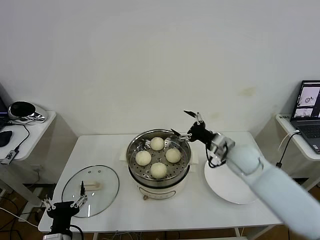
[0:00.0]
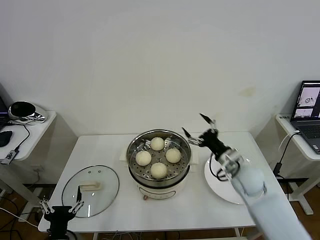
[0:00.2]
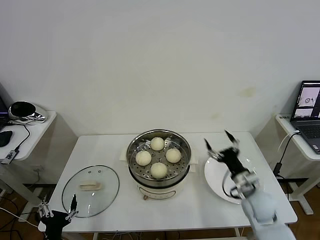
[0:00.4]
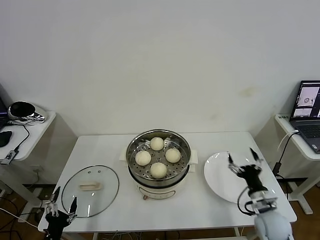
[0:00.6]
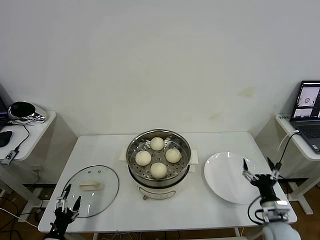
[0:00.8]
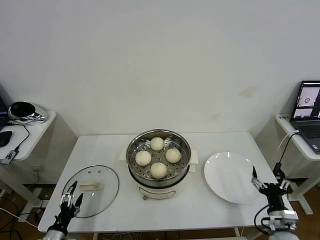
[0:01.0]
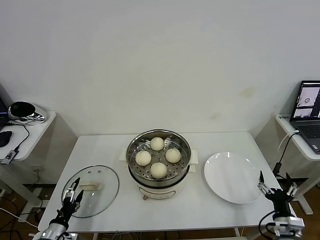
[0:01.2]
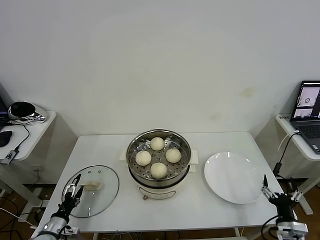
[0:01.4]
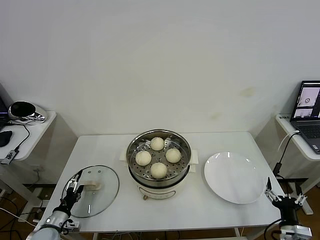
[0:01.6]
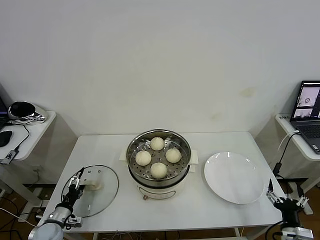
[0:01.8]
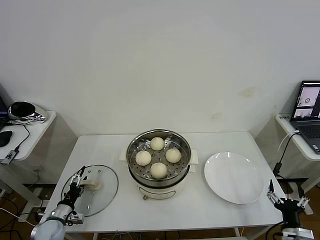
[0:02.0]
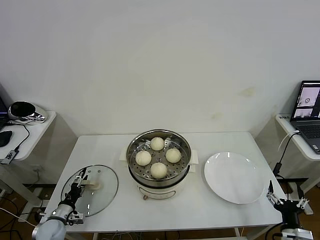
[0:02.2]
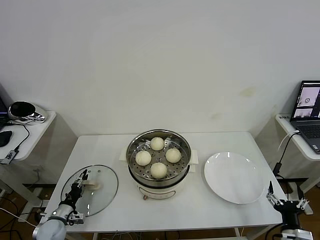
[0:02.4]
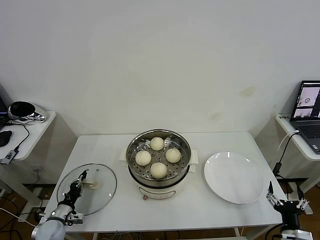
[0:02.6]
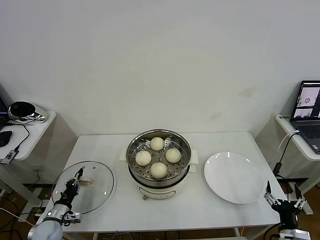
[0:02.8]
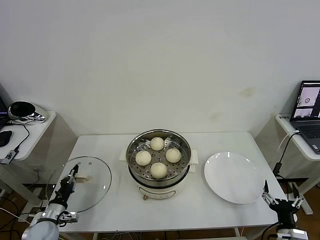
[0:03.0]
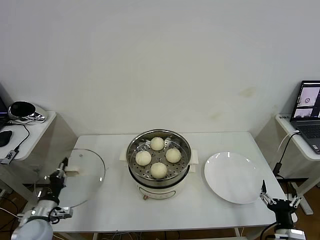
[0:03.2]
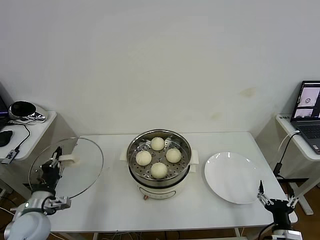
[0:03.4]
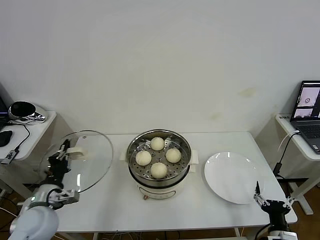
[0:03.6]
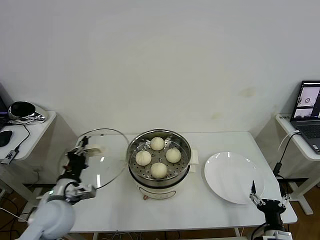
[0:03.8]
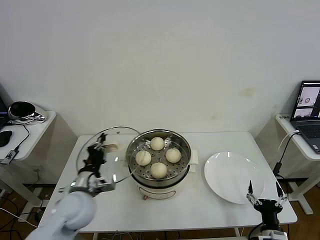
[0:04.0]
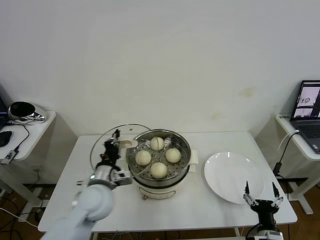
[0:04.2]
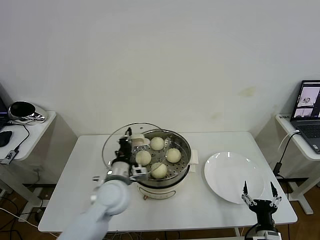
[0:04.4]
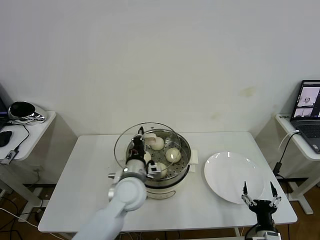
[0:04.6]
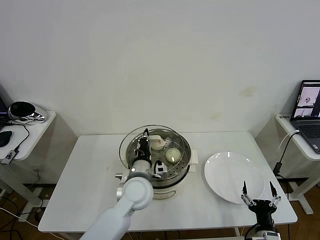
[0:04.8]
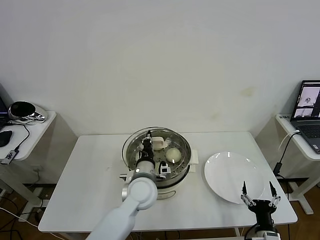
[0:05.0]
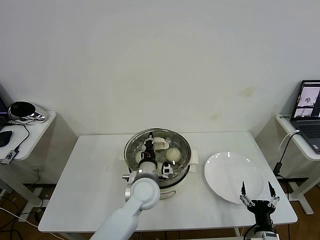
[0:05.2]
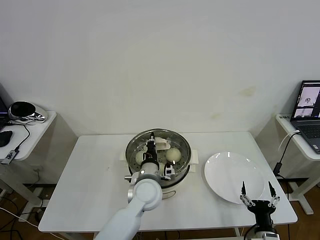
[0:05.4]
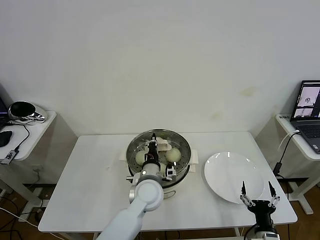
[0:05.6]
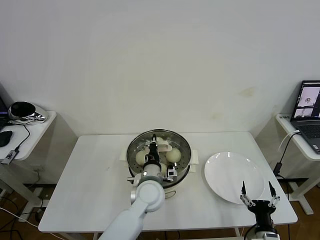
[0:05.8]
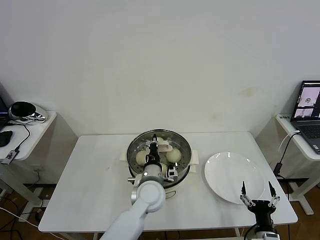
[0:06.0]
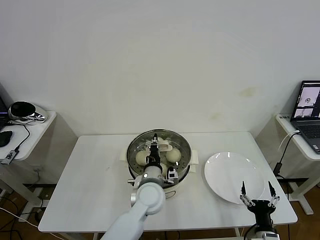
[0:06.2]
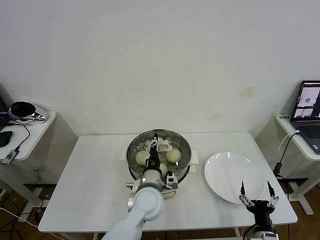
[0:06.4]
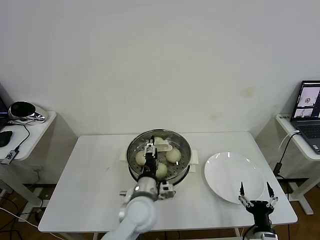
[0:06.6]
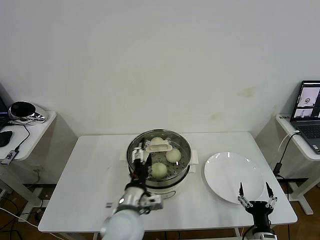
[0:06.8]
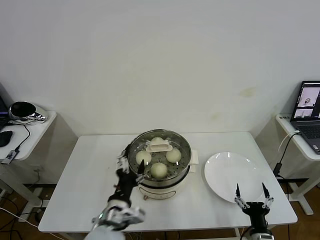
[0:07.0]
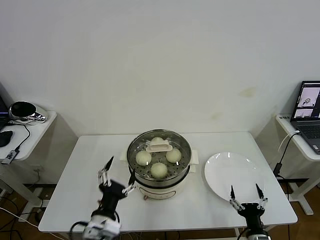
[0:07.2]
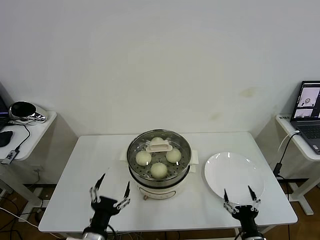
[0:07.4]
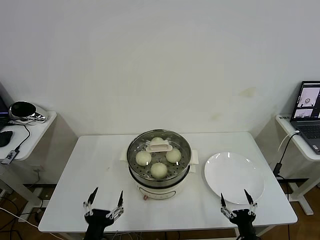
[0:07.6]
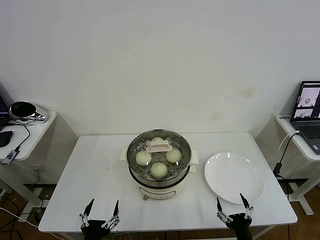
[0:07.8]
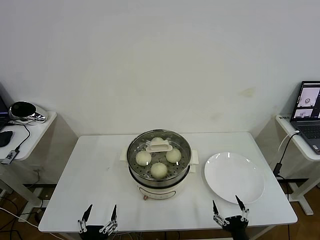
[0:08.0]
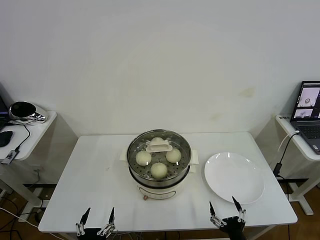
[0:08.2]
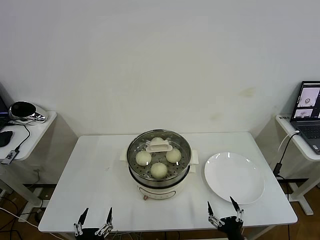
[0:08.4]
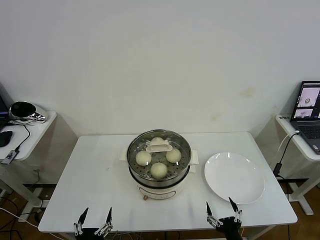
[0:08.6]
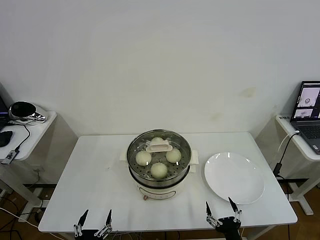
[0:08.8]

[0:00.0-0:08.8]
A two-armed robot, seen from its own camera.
Task of the whole recording: take steamed baozi put them in steamer then cover it.
Step, 0:00.0 to 0:02.8: Grasp the pot lid with left gripper.
Step, 0:03.0 to 0:06.6: Place the pot lid on the steamer with left gripper.
0:00.0 to 0:01.4: The left gripper shifts some 20 cm to the left, downward and forward, while the right gripper is displaced backward, downward and to the right by roughly 30 cm.
0:01.4 to 0:03.0: The left gripper closes up.
0:03.0 to 0:04.4: The right gripper goes roughly 5 cm to the left. Meanwhile the left gripper shifts some 30 cm to the right and upward.
0:04.4 to 0:05.8: The left gripper is displaced to the right by some 10 cm.
0:05.8 to 0:07.4: The left gripper shifts some 25 cm backward and to the left, and opens its fingers.
0:07.4 to 0:08.8: The left gripper heads downward, backward and to the left, covering approximately 15 cm, while the right gripper changes place by roughly 5 cm.

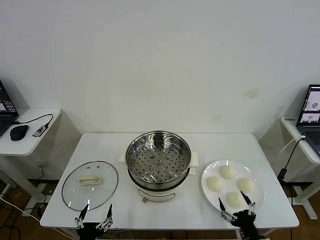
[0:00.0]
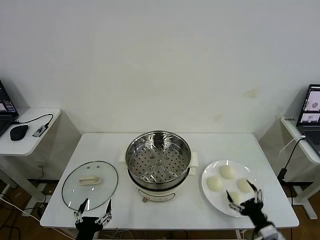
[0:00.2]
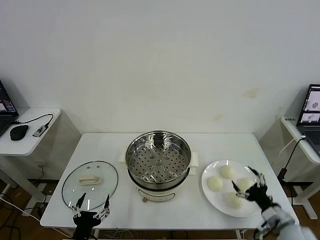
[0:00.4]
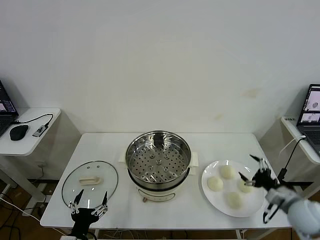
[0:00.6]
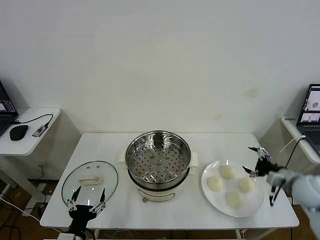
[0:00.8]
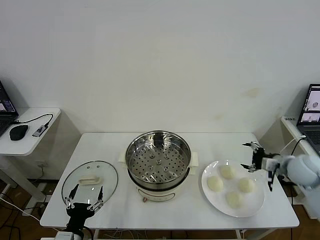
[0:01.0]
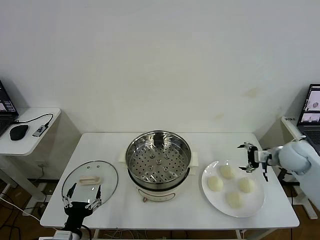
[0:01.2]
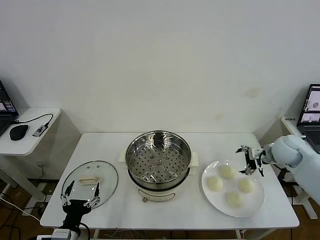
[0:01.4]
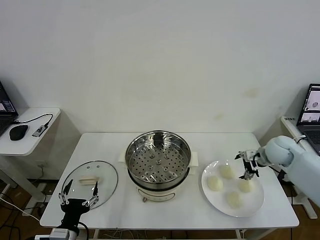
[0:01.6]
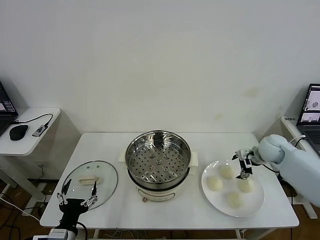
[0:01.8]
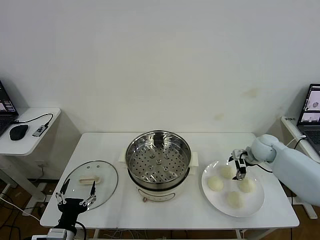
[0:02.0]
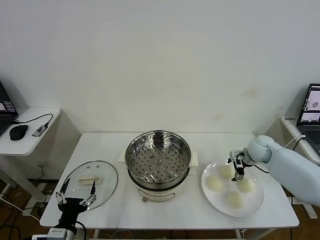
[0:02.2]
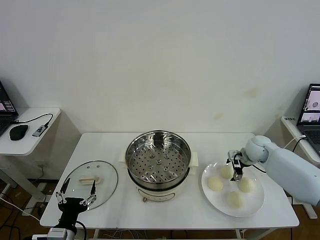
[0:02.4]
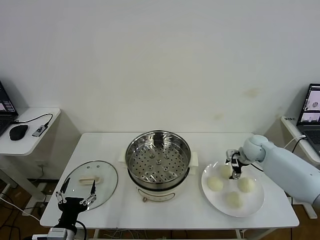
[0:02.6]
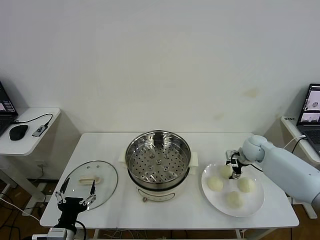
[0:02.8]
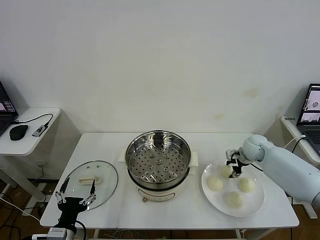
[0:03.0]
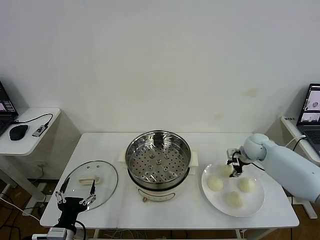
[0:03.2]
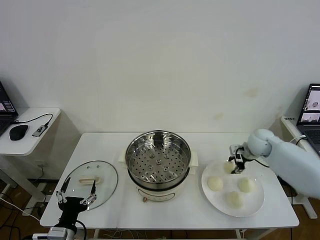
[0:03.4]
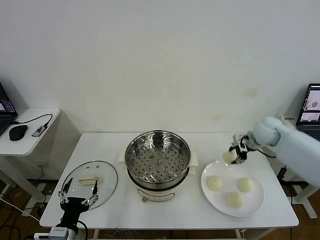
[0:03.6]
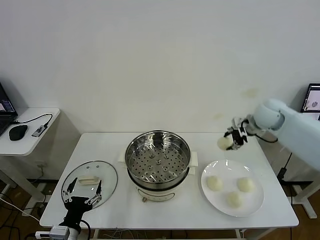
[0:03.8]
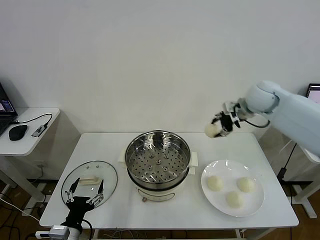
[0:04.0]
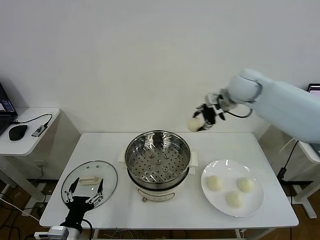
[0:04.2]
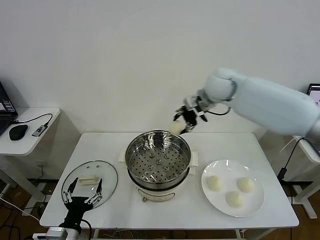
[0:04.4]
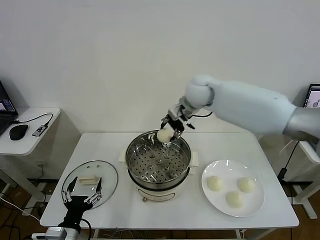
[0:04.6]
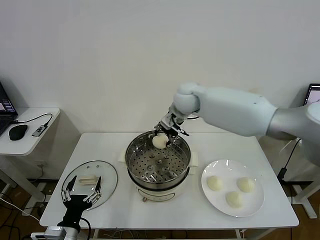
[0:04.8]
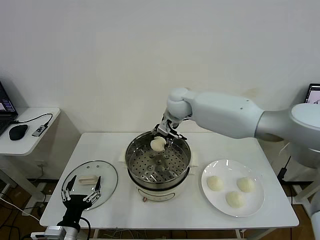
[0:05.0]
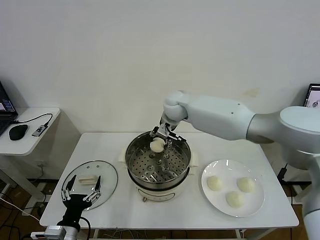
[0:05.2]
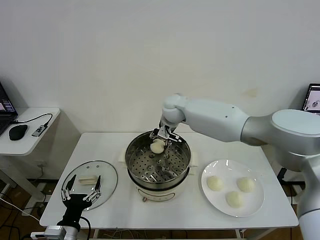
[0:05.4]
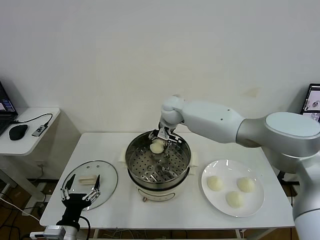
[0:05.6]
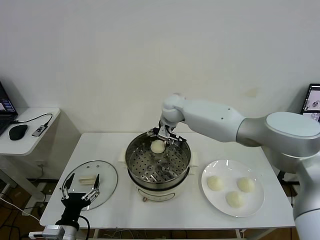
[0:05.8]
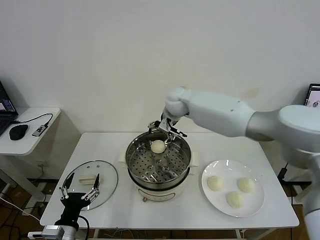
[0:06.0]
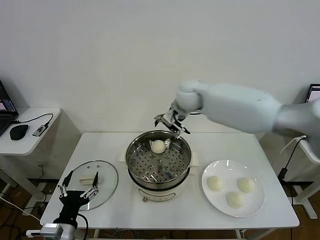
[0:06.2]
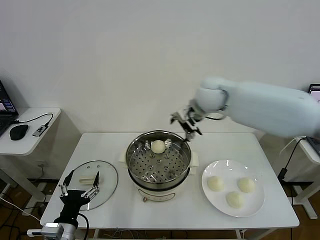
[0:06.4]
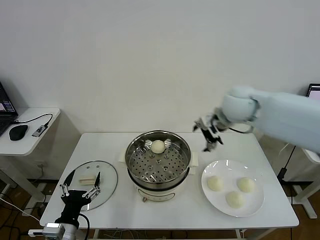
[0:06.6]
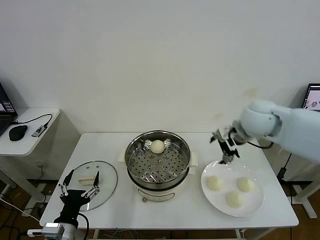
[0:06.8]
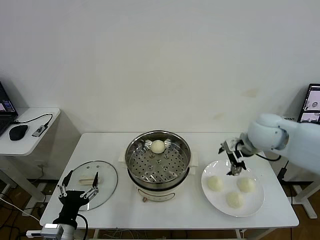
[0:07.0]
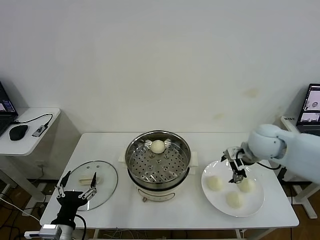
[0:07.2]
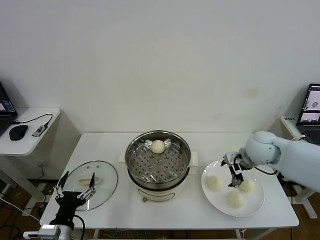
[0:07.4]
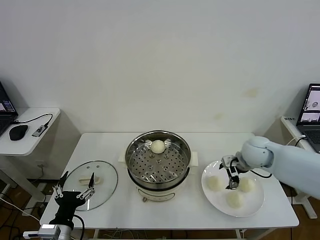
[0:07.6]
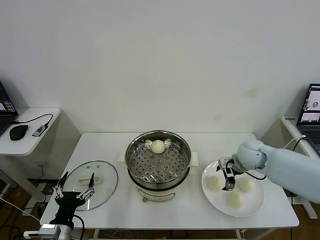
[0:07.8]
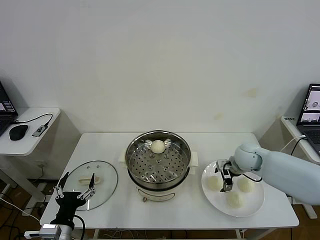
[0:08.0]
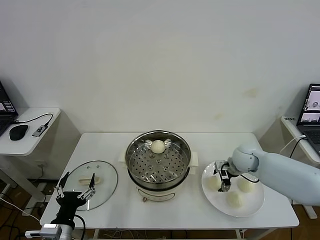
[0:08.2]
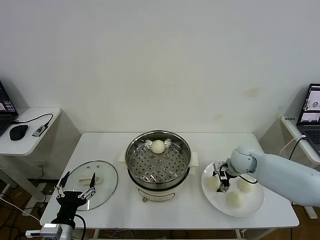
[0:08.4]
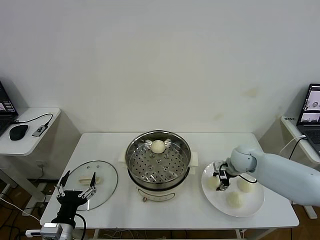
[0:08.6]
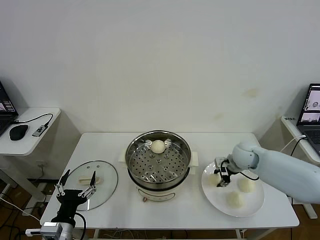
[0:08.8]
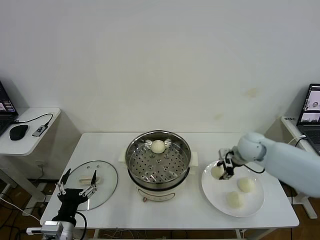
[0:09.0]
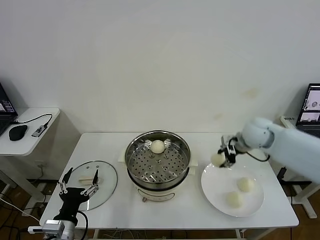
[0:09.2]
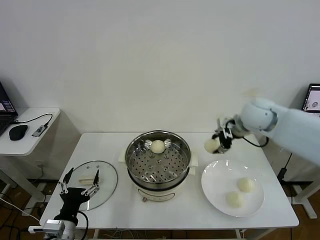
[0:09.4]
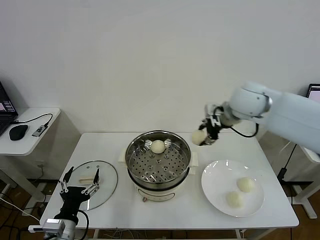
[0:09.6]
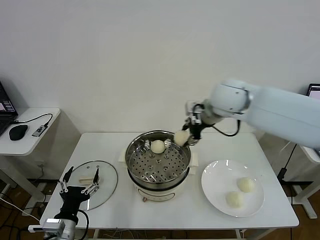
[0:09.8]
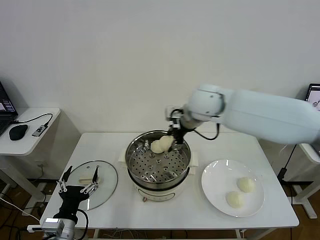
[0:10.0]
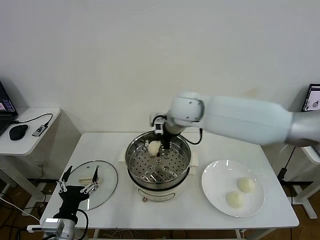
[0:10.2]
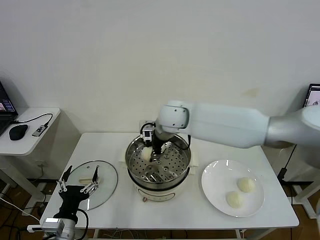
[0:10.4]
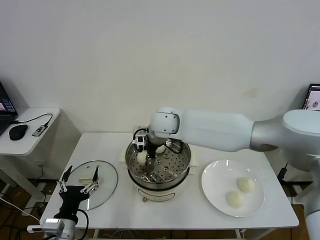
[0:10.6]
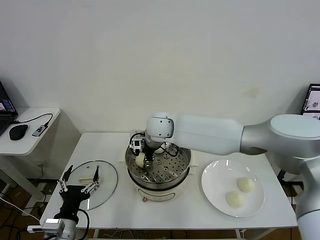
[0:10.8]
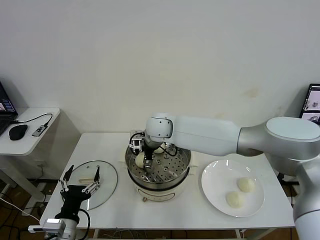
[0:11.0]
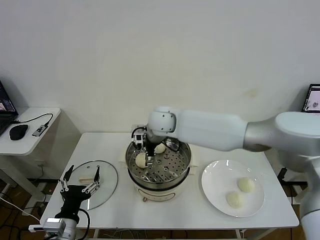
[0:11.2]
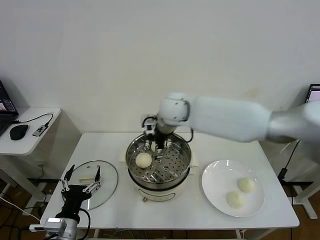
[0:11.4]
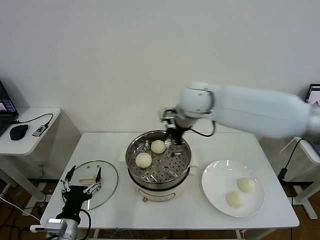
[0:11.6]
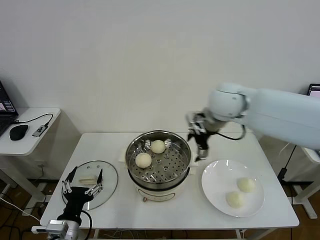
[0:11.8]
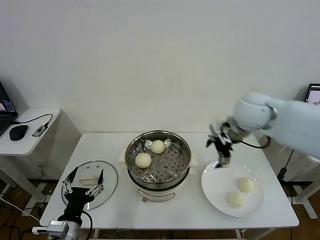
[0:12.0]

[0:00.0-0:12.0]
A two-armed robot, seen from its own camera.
Task of the whole recording: take steamed baozi put them in steamer then cover it.
Step, 0:00.0 to 0:03.0: Grasp the baozi in the plate with right gripper.
Step, 0:03.2 to 0:05.8: Place the baozi on the steamer with right gripper.
Step, 0:06.0 to 0:08.6: Grasp the baozi in the plate with right gripper.
Step, 0:08.8 to 0:11.2: Place the baozi on the steamer with right gripper.
0:01.6 to 0:03.0: The right gripper changes place by approximately 5 cm, and closes its fingers.
0:03.0 to 0:04.4: The right gripper moves to the left and upward, some 30 cm.
0:04.4 to 0:06.0: The right gripper goes downward and returns, roughly 10 cm each way, and opens up.
0:06.0 to 0:07.6: The right gripper is displaced to the right, downward and backward by some 30 cm.
0:07.6 to 0:09.0: The right gripper shifts by roughly 5 cm, and closes.
0:09.0 to 0:10.4: The right gripper shifts some 30 cm to the left.
0:10.4 to 0:12.0: The right gripper travels to the right by approximately 25 cm, and opens.

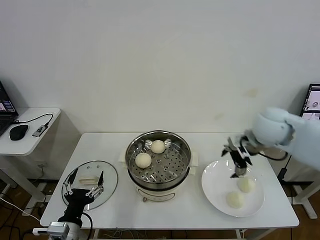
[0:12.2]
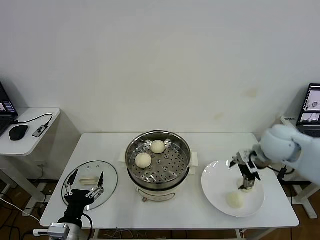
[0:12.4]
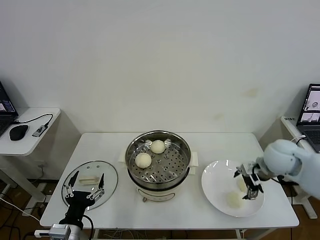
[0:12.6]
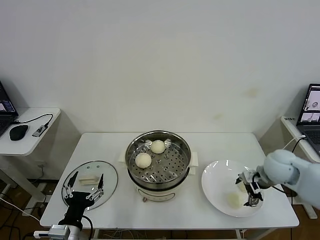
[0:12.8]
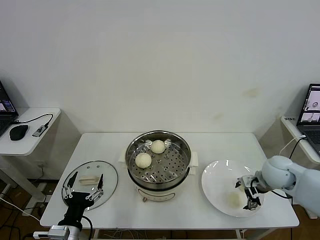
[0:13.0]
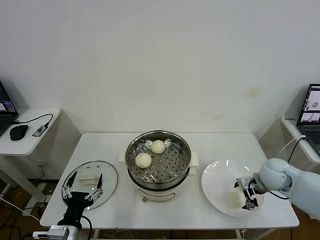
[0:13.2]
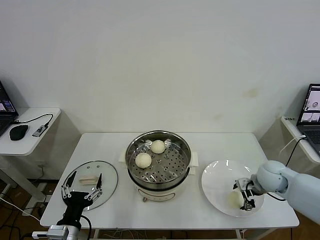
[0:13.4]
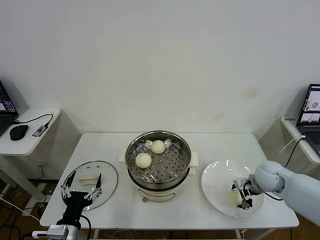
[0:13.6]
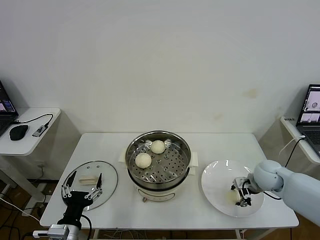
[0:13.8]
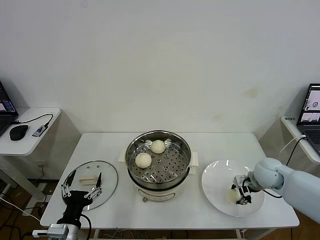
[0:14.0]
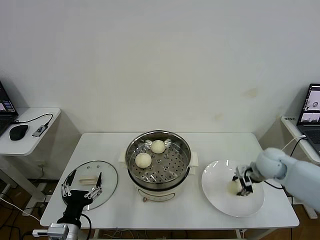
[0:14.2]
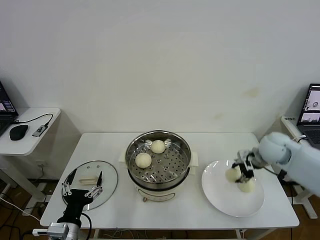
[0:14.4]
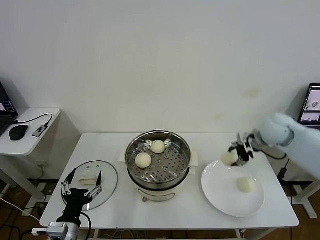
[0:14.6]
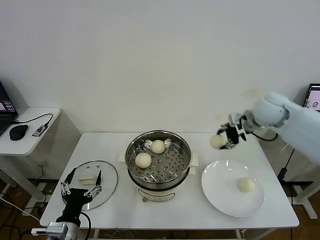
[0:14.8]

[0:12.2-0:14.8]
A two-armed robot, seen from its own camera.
Task of the whole recording: take steamed baozi put them in steamer then cover it.
Step, 0:12.2 to 0:13.8: Grasp the baozi in the plate with right gripper.
0:12.2 to 0:13.4: The right gripper is displaced downward by some 15 cm.
0:13.4 to 0:14.8: The right gripper travels upward and forward by some 25 cm, and closes.
